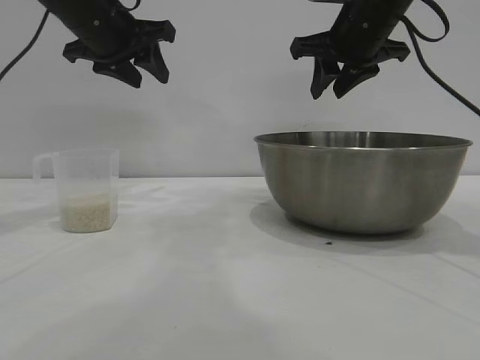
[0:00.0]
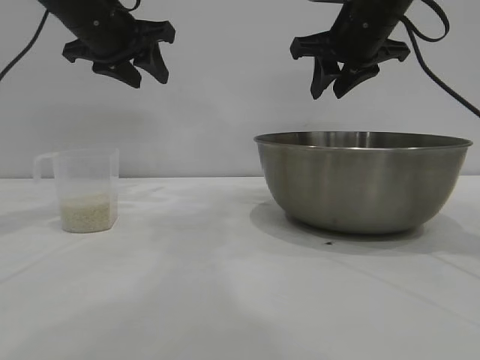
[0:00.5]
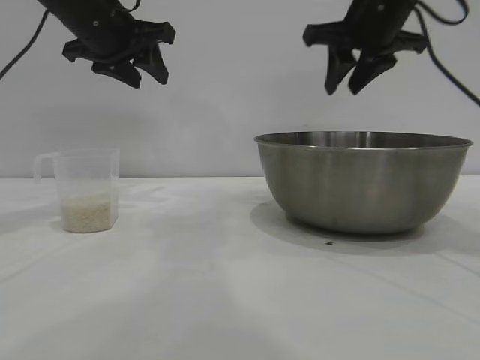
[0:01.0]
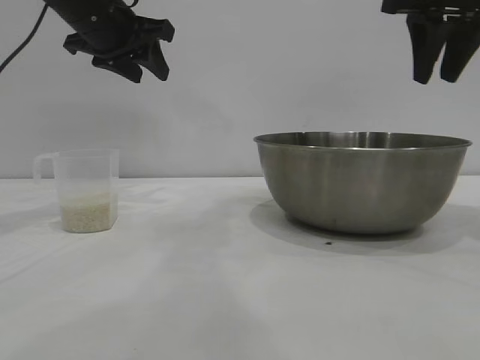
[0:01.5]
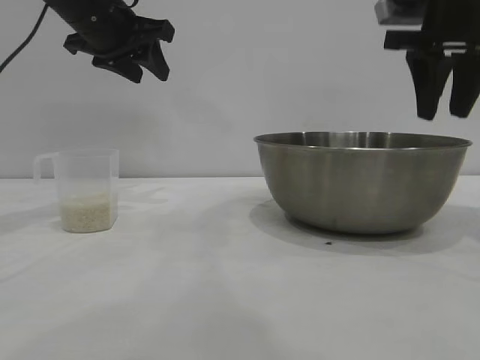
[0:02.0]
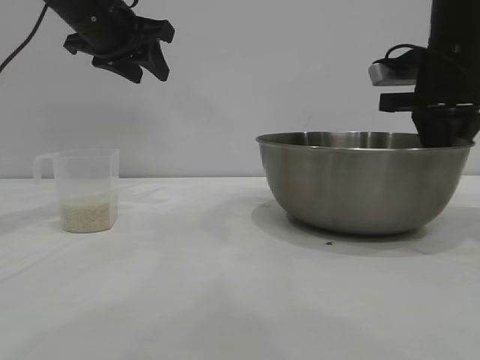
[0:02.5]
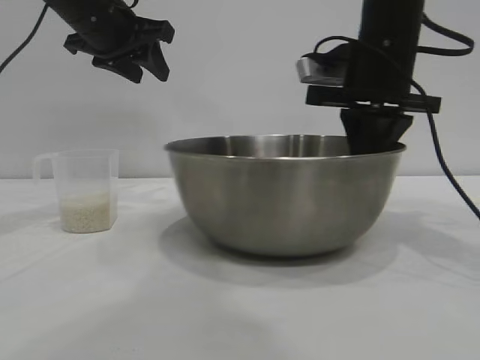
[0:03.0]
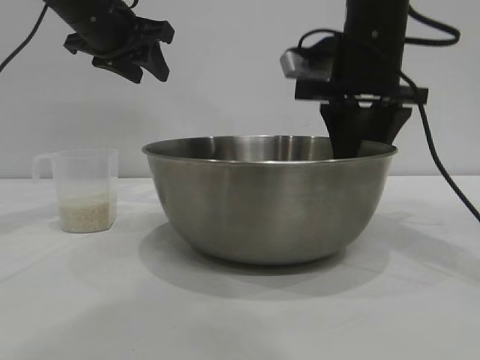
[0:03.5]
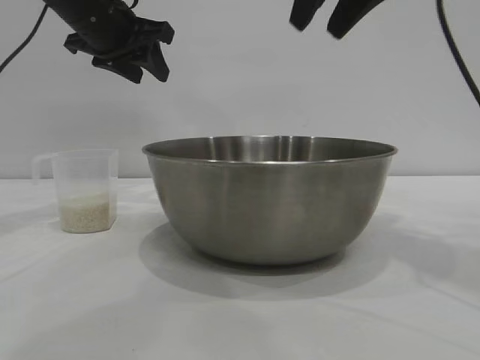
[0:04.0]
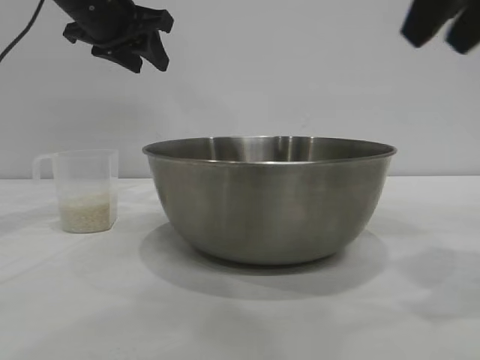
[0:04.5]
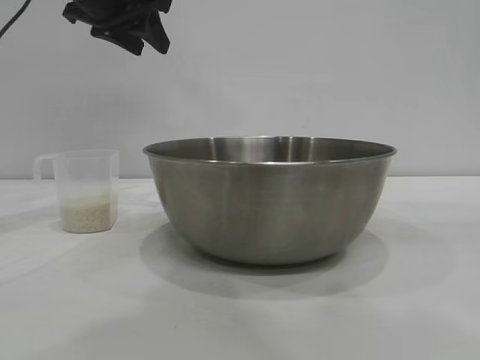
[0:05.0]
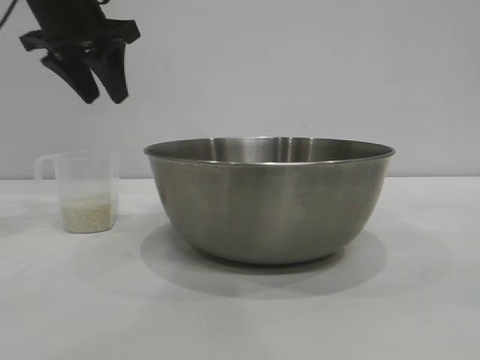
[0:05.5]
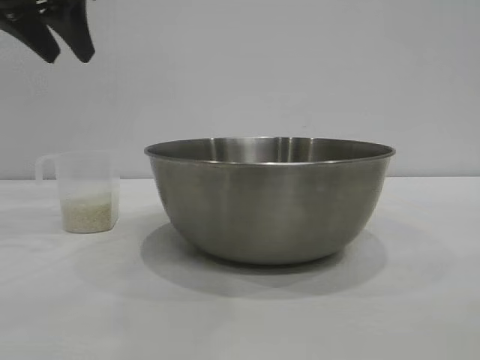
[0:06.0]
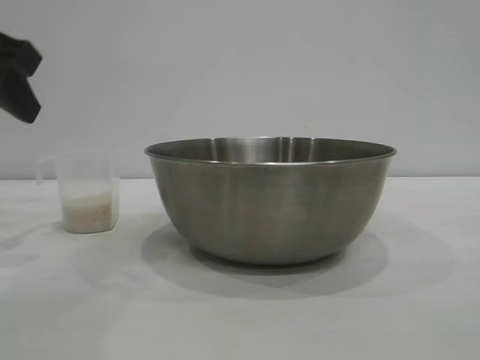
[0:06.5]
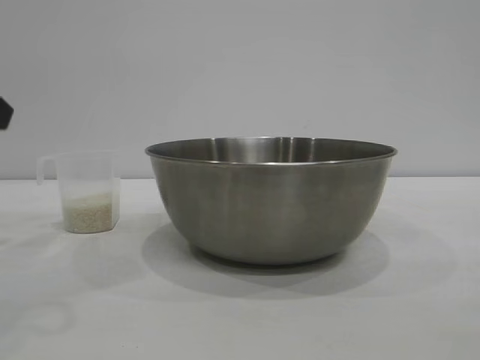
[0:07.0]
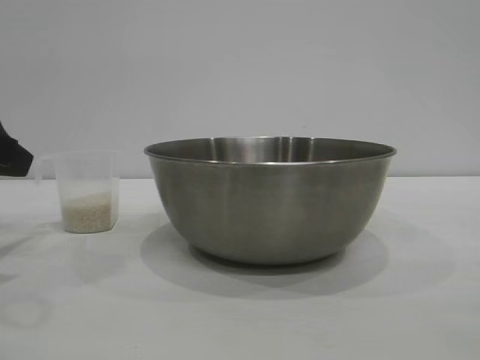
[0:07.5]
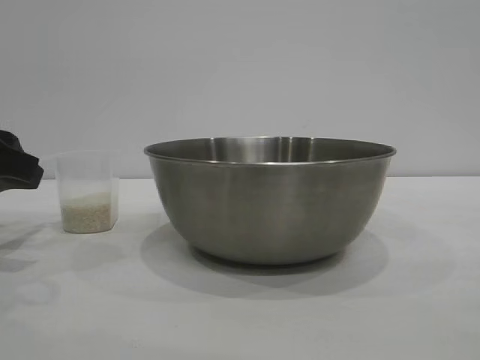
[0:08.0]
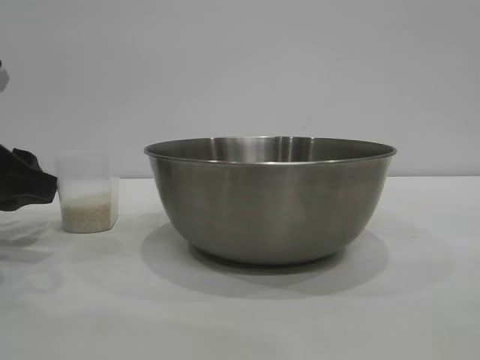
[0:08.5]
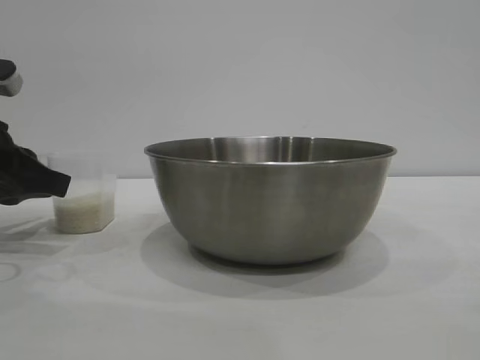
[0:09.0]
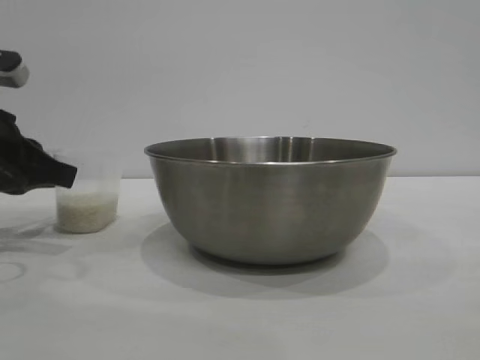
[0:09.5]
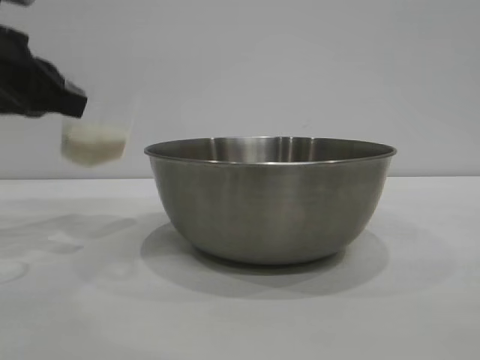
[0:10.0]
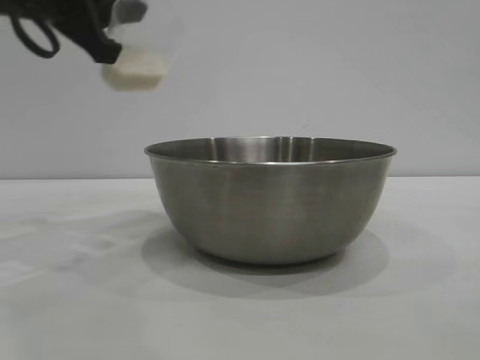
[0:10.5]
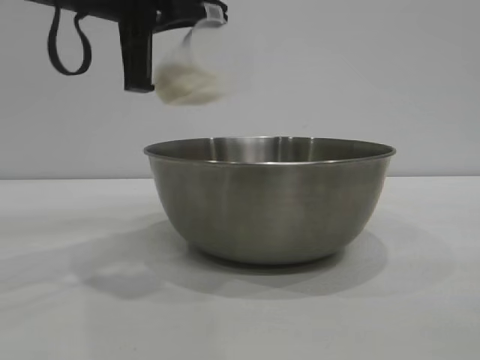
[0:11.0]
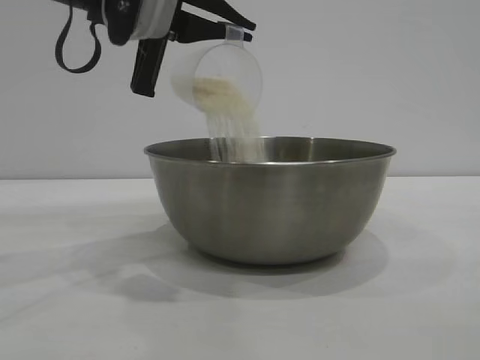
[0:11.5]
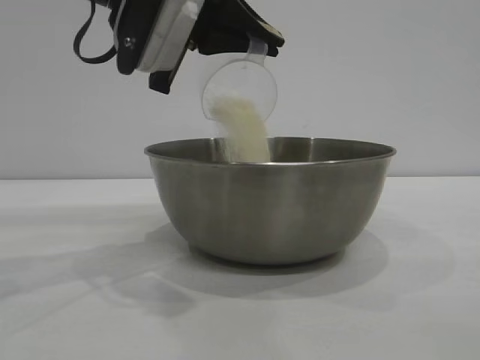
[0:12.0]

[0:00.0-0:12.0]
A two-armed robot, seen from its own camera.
Task of the whole recording: the right gripper grasp the rice container and place it in the center of the table, the left gripper grasp the rice scoop and pour the rice into the rice container.
Step, 0:00.0 to 0:03.5: Move the bowl to the center of view with the right gripper.
Step, 0:04.0 to 0:10.0: Pick up the cup with rice in it with the left gripper.

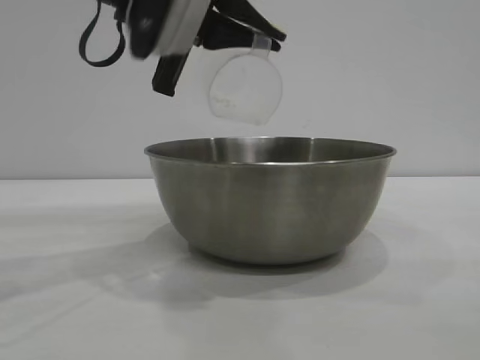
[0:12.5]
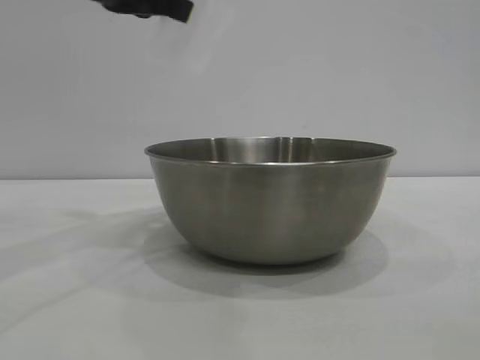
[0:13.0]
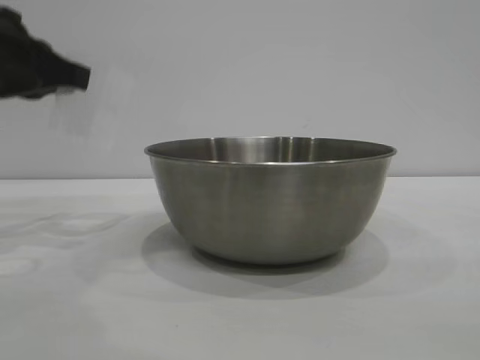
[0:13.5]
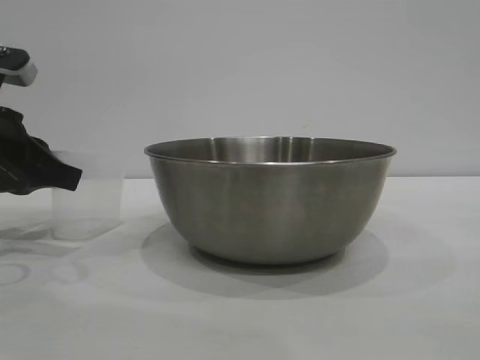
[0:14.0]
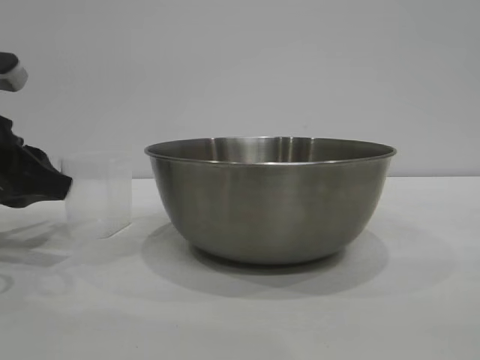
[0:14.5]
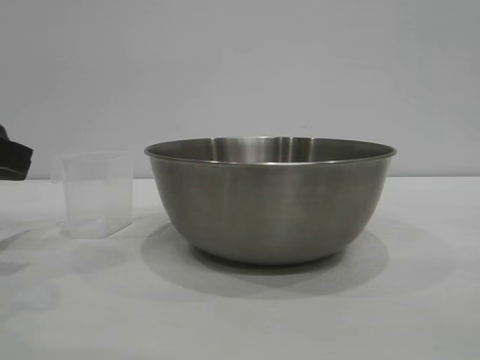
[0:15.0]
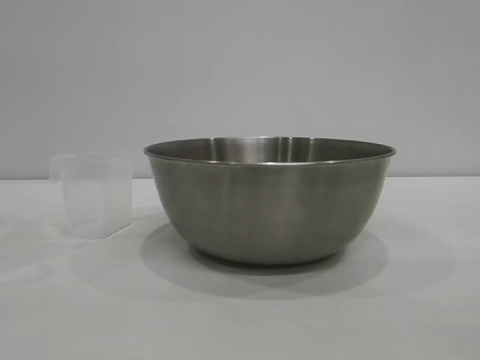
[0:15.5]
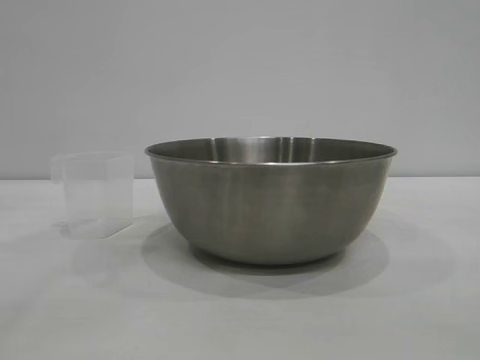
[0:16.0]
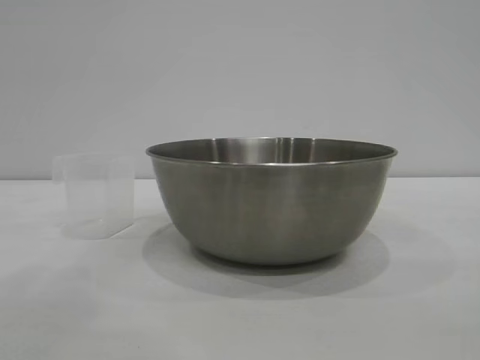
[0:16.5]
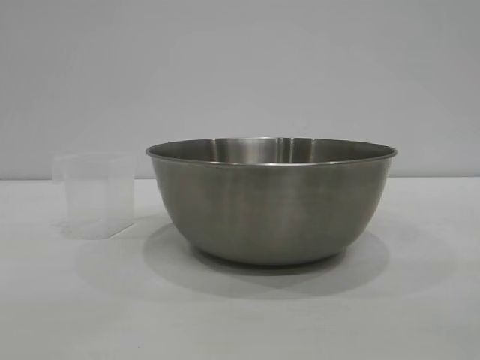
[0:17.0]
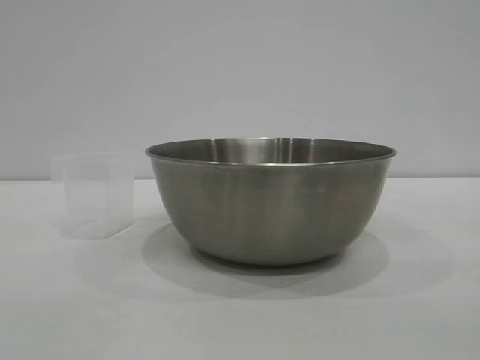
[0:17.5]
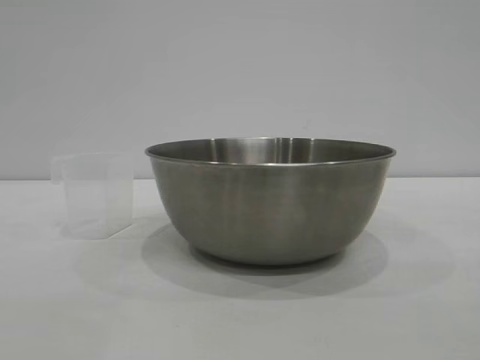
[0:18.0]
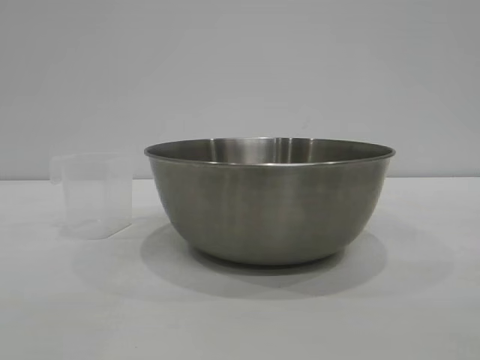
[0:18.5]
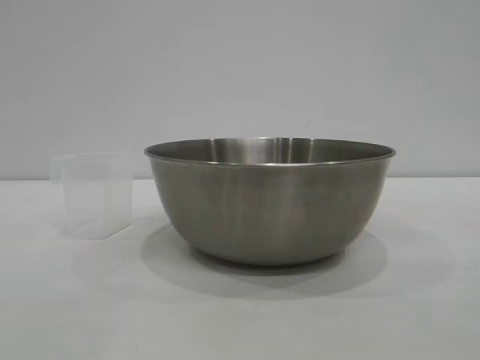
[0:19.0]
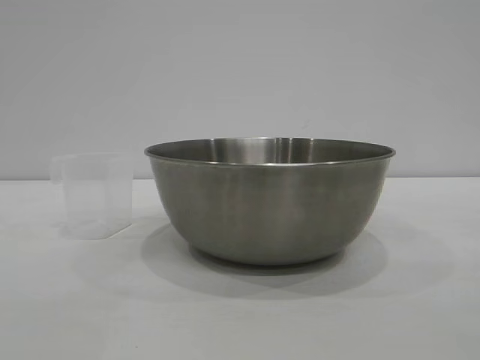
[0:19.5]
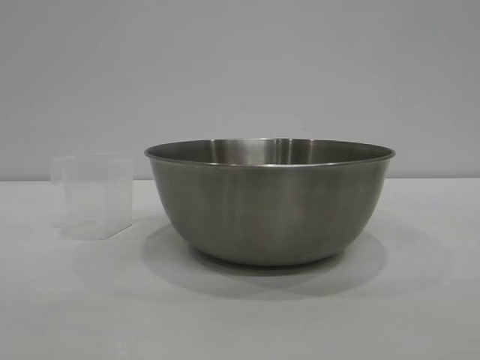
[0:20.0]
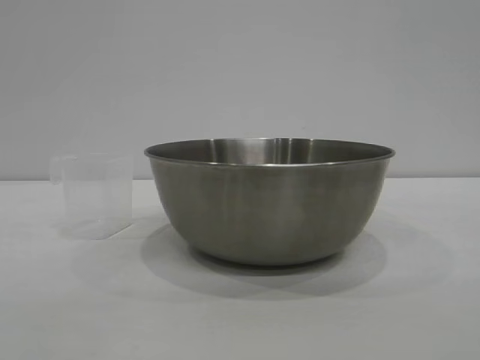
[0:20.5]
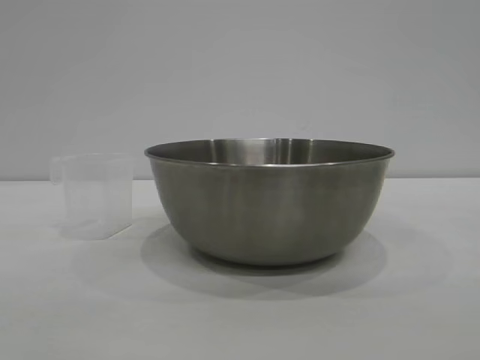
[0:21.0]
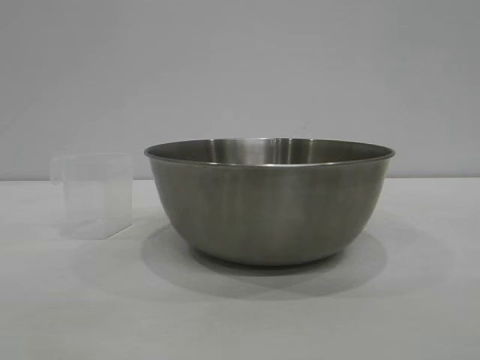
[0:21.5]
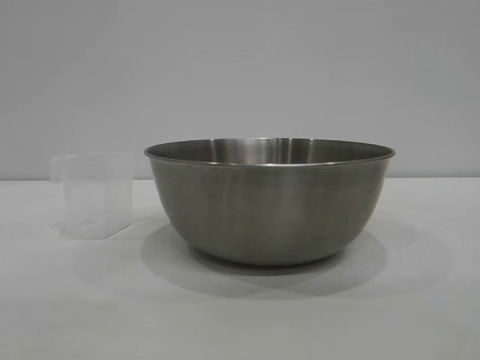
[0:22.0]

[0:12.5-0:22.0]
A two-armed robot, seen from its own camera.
Task of the whole recording: the right gripper grasp the rice container and place it in the center of the table, the left gripper grasp the rice scoop and pour the rice into the rice container.
Step, 0:13.0 to 0:14.5: Place the cup on the table with the left gripper.
